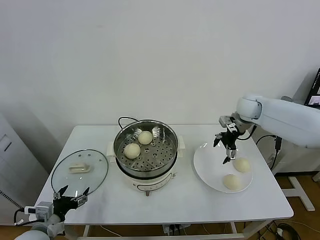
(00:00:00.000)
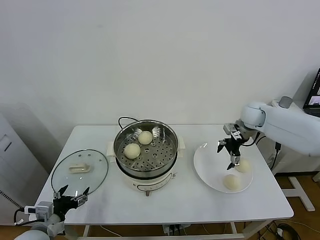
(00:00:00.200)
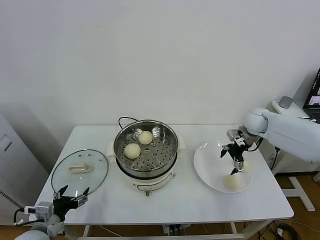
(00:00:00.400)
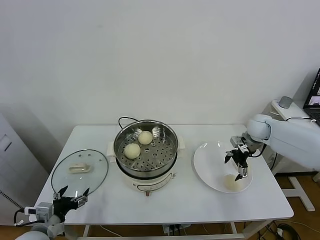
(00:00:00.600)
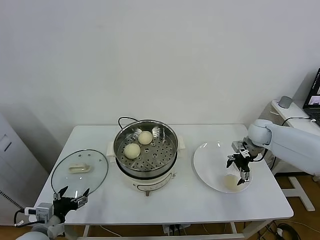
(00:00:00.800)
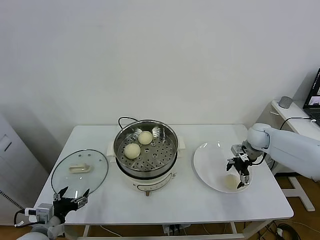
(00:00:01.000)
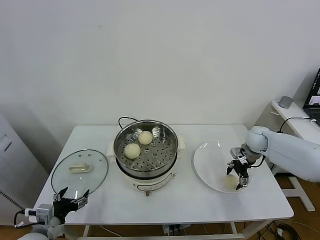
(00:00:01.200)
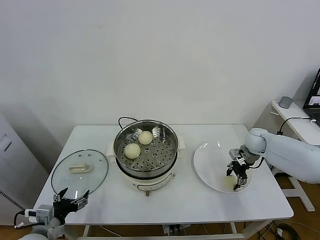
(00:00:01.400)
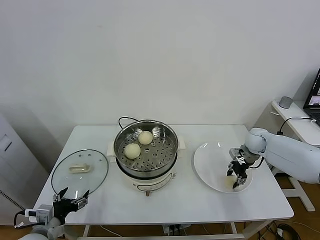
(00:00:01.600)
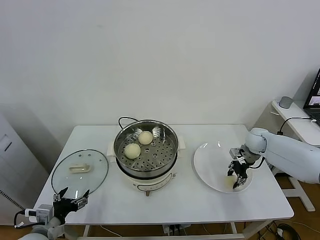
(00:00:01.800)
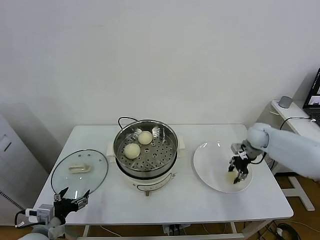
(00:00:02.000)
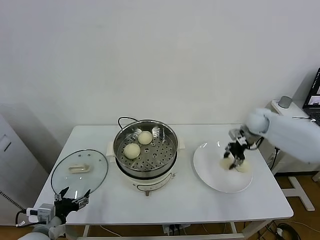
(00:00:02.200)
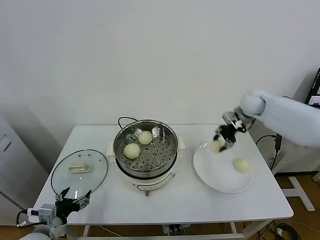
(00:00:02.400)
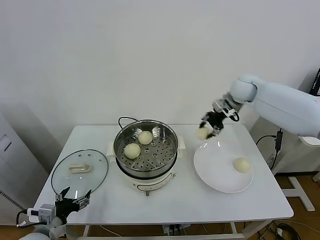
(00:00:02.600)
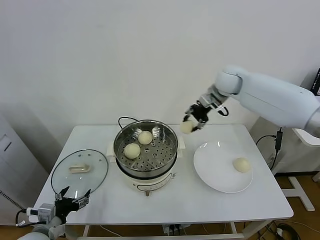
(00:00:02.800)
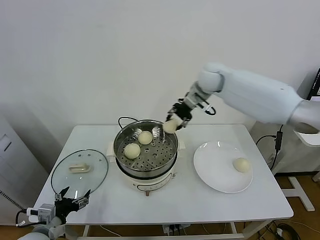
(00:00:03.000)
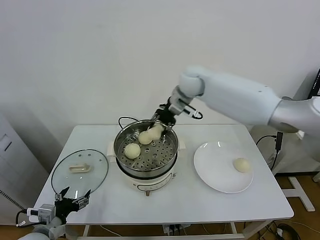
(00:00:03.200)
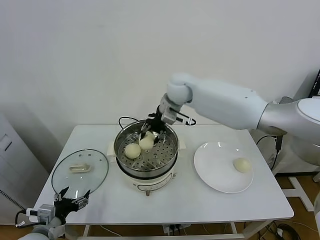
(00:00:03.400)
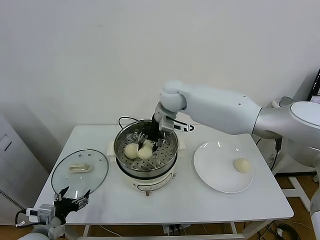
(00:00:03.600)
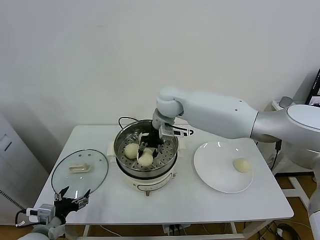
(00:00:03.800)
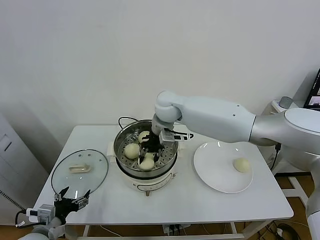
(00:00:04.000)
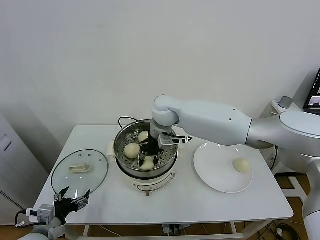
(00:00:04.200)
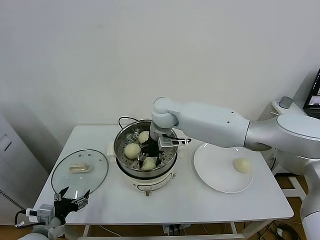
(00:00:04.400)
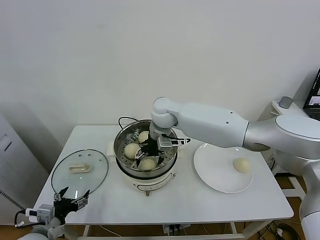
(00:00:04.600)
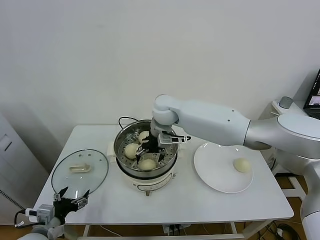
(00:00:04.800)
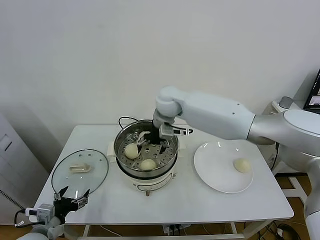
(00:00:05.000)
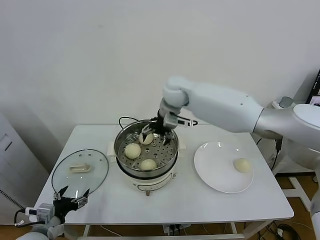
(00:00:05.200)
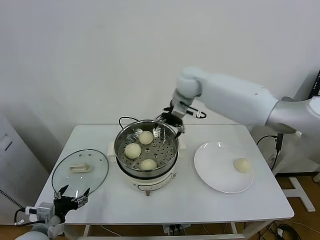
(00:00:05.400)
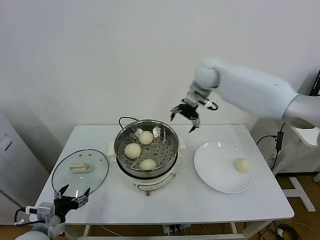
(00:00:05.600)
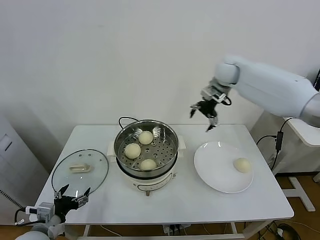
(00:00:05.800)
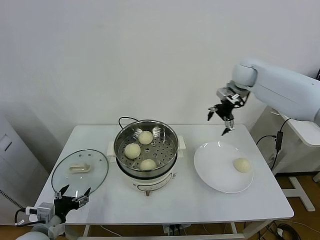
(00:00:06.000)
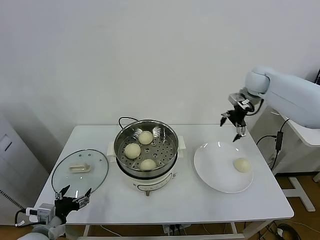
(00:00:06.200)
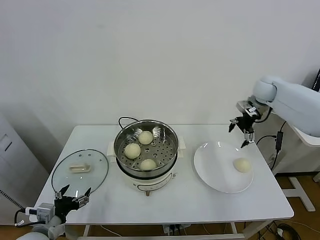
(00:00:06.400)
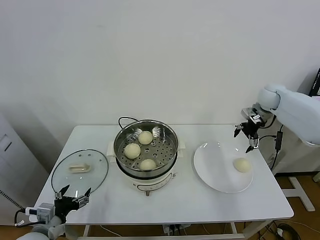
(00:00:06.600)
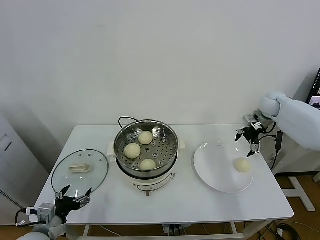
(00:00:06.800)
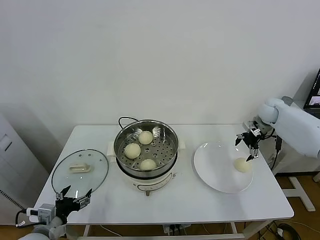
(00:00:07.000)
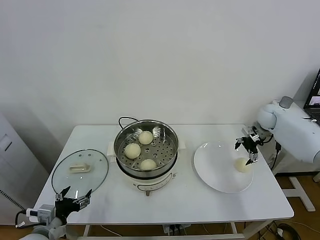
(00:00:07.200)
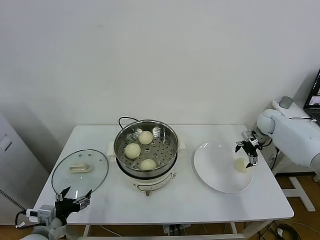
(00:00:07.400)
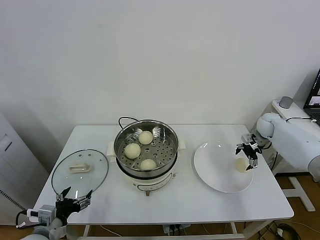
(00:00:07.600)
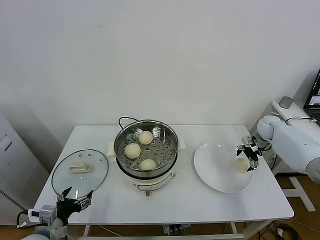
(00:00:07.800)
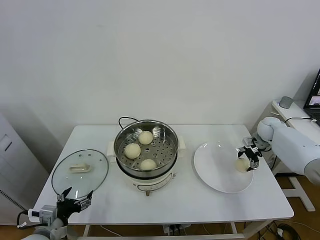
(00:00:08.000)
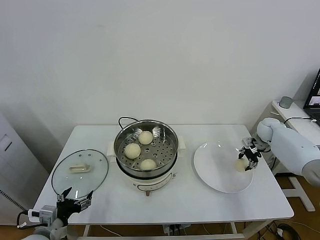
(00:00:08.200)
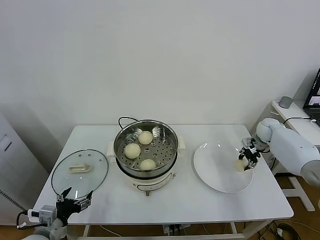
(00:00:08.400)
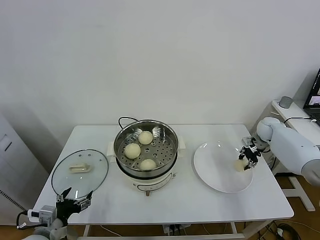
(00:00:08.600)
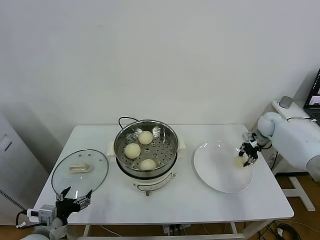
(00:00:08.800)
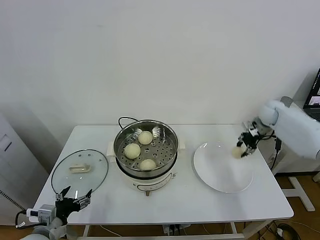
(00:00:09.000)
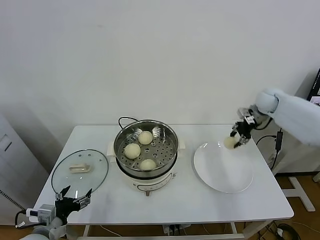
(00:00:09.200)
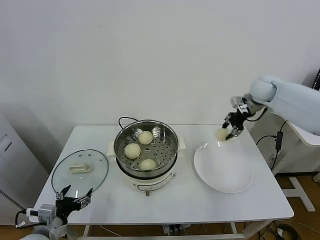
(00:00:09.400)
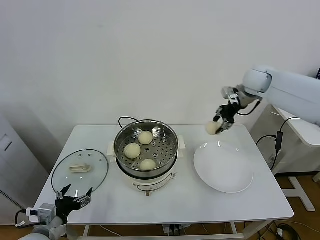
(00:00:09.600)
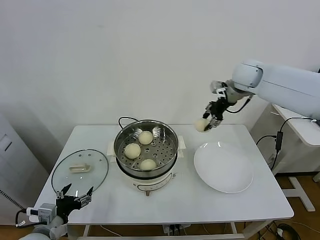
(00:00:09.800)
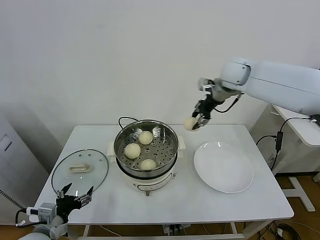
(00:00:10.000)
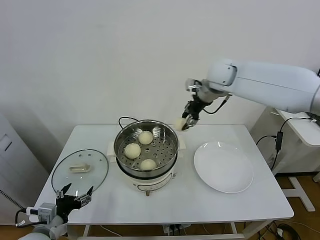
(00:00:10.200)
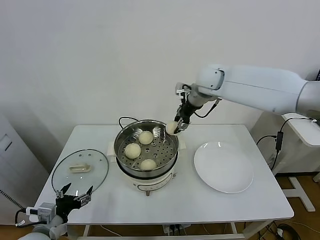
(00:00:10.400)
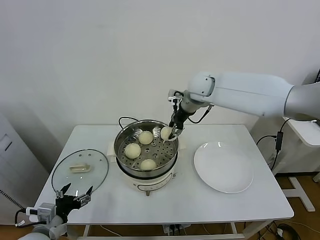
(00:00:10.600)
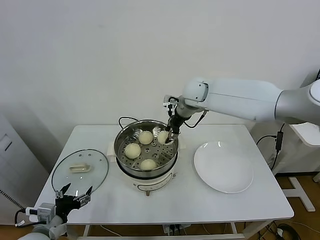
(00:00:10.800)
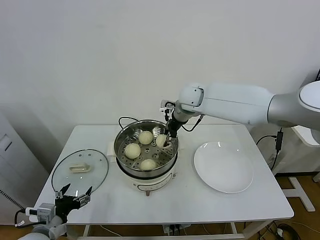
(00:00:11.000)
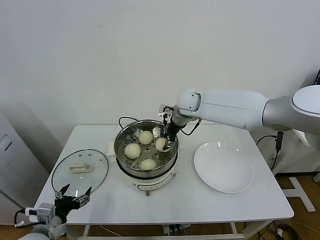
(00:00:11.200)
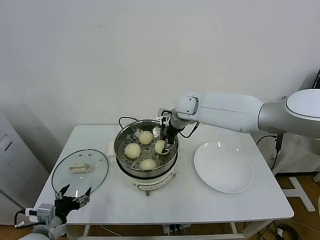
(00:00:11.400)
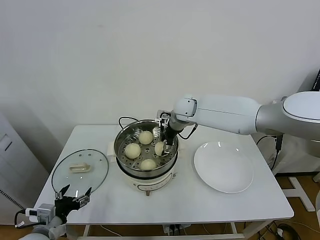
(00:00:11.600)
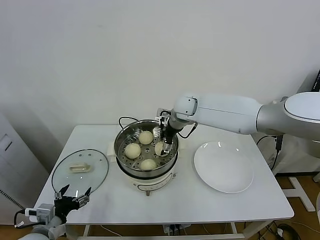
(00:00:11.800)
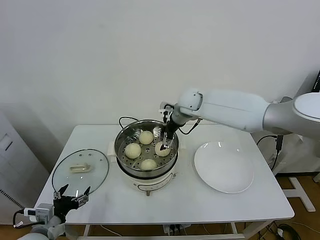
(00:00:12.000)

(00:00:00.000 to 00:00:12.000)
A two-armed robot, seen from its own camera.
Task of the whole recording: take steamed baozi put them in steamer.
Step, 00:00:00.000 - 00:00:01.800: Grasp the baozi in the plate with right gripper.
Step, 00:00:02.000 - 00:00:05.000: Place the baozi on the steamer with right gripper.
Step, 00:00:05.200 - 00:00:08.400: Grasp the baozi in the plate with right gripper.
Step, 00:00:08.600 - 00:00:11.800: Place the baozi on the steamer with right gripper.
00:00:00.000 - 00:00:01.600: The right gripper travels downward and to the right by some 15 cm, and closes up.
00:00:01.600 - 00:00:03.000: The right gripper goes approximately 35 cm upward and to the left.
00:00:03.000 - 00:00:04.400: The right gripper goes approximately 20 cm to the left, downward and backward, and opens.
00:00:04.400 - 00:00:06.000: The right gripper travels to the right by approximately 30 cm, and opens its fingers.
00:00:06.000 - 00:00:07.600: The right gripper moves downward and to the right, some 25 cm.
00:00:07.600 - 00:00:09.000: The right gripper is displaced upward by approximately 5 cm, and closes.
00:00:09.000 - 00:00:10.400: The right gripper heads to the left and upward, covering approximately 30 cm.
00:00:10.400 - 00:00:12.000: The right gripper moves downward, roughly 10 cm, and opens.

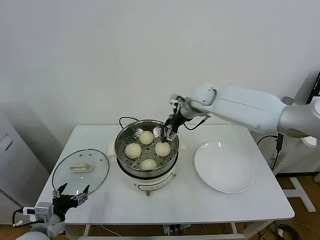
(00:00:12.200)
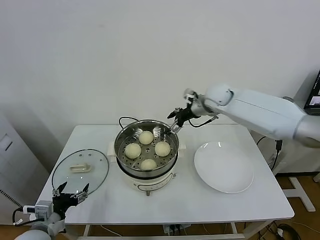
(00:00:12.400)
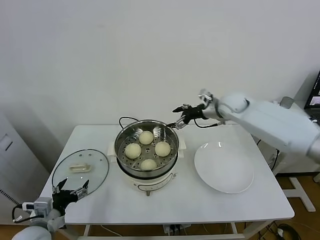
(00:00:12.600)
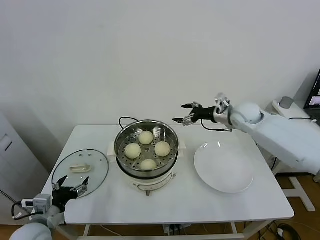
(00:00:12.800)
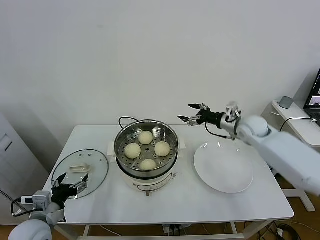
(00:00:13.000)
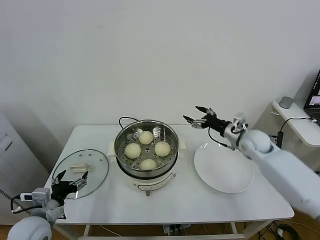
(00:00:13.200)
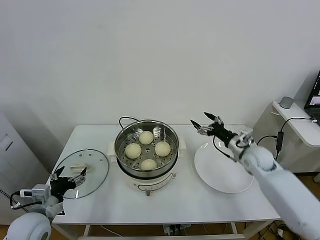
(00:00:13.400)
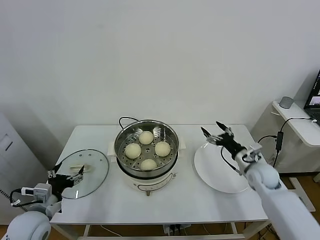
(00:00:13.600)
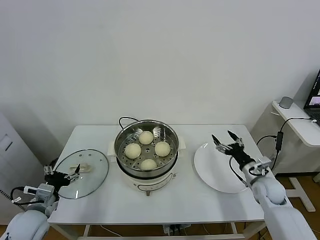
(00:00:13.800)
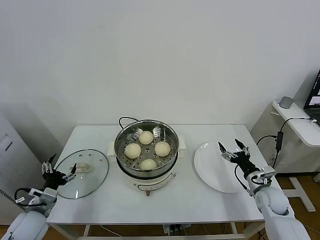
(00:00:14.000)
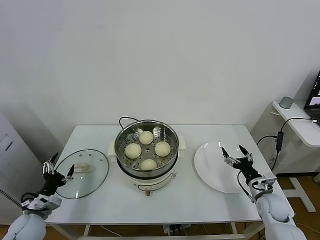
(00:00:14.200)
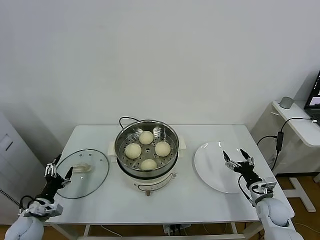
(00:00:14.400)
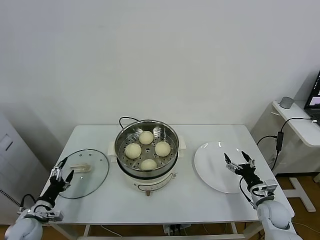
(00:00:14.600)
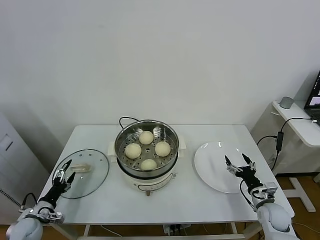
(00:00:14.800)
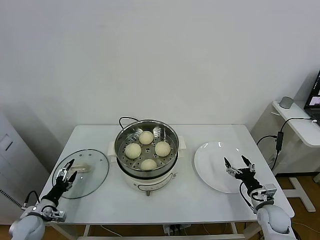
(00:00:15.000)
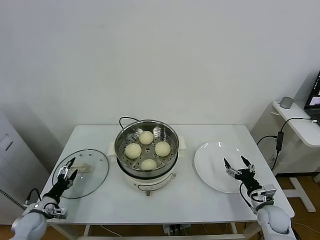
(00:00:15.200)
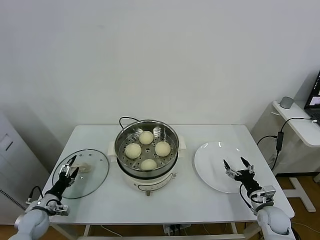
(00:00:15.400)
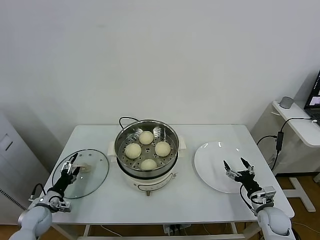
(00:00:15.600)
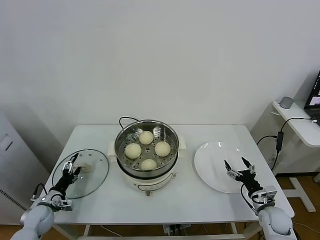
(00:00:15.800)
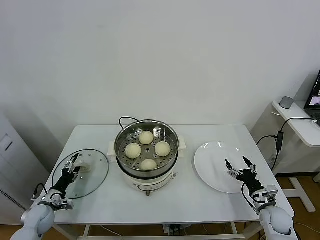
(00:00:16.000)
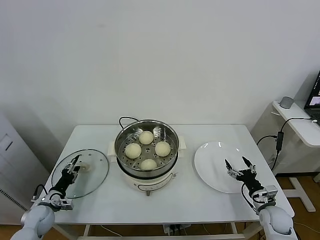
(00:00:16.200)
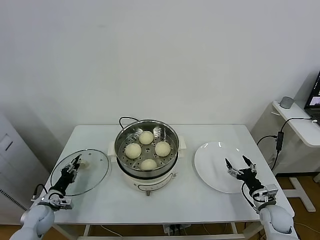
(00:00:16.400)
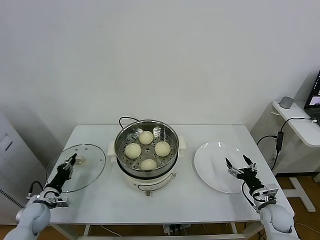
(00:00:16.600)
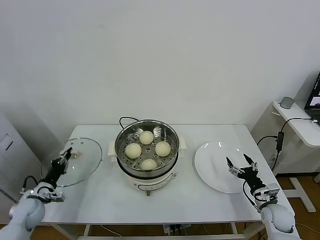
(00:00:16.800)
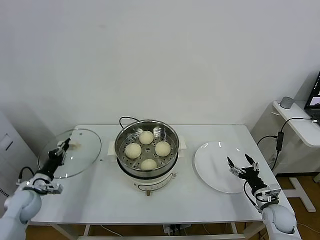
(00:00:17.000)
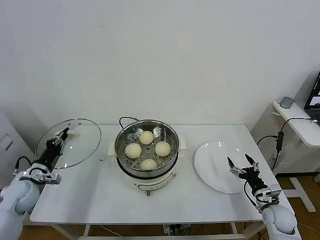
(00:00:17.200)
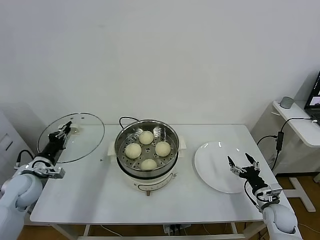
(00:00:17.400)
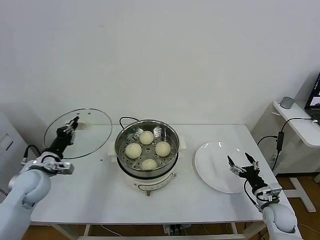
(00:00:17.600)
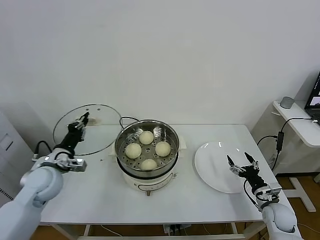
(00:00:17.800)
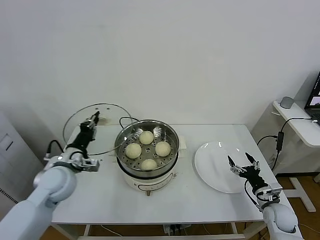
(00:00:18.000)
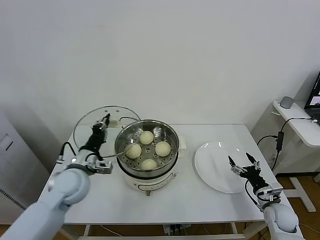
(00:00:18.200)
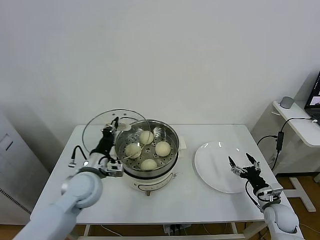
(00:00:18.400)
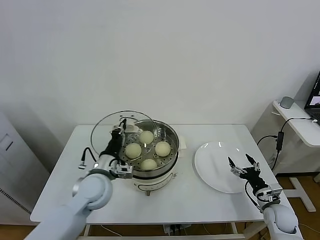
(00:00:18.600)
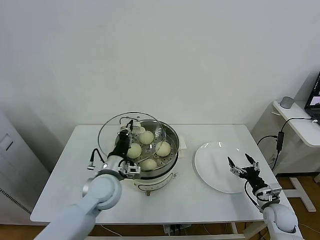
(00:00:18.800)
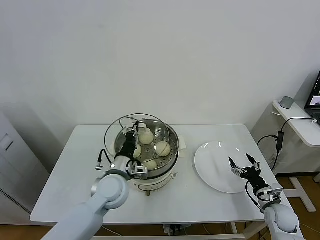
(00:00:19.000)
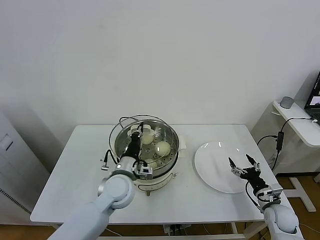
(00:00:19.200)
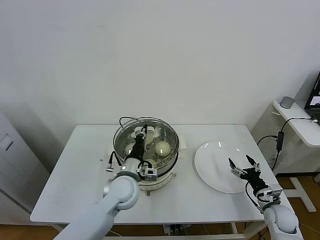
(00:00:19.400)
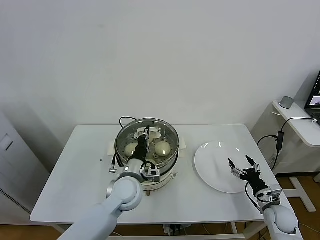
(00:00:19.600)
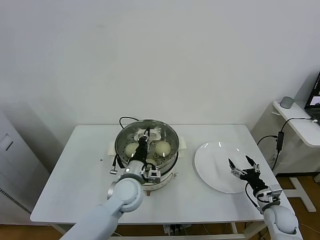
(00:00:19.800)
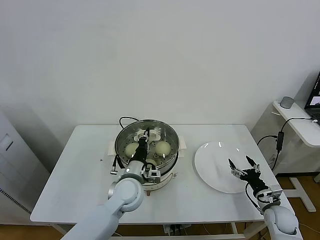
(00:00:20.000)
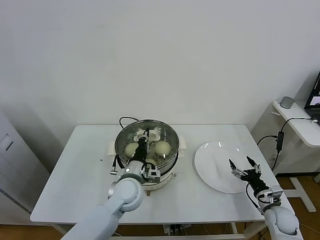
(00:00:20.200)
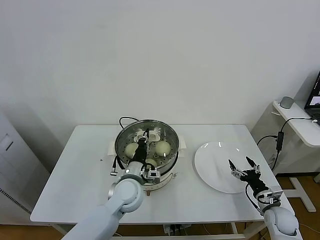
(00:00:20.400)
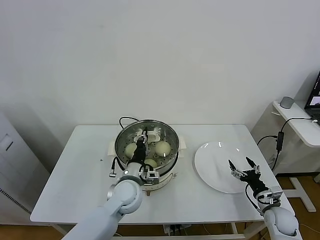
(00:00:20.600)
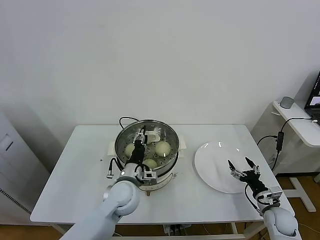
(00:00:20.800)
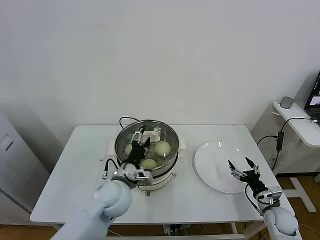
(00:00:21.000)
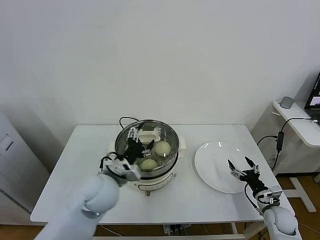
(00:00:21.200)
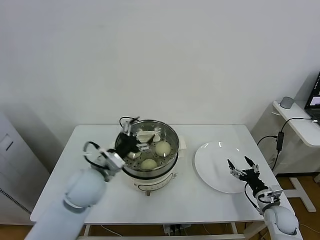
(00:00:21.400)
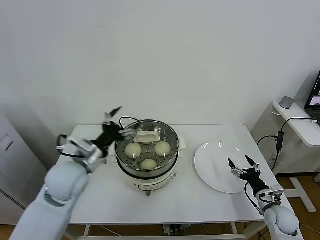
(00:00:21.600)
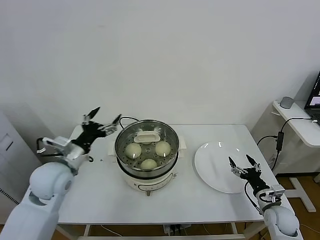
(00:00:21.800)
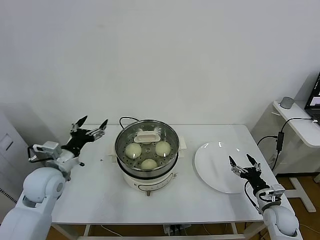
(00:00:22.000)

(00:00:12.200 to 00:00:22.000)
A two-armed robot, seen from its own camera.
Task of the whole recording: take steamed baozi put them in steamer.
Step, 00:00:12.200 - 00:00:16.600: Grasp the pot lid with left gripper.
Step, 00:00:16.800 - 00:00:20.800: Place the pot lid on the steamer with left gripper.
00:00:12.200 - 00:00:13.600: The left gripper changes place by about 5 cm; the right gripper moves downward, to the right and backward, some 35 cm.
00:00:13.600 - 00:00:15.000: The right gripper shifts some 15 cm downward and backward. Meanwhile the left gripper moves downward and to the left, approximately 20 cm.
00:00:15.000 - 00:00:16.400: The left gripper closes up.
00:00:16.400 - 00:00:17.800: The left gripper heads upward and to the right, covering about 25 cm, and closes.
00:00:17.800 - 00:00:19.200: The left gripper travels to the right by approximately 20 cm.
00:00:19.200 - 00:00:20.600: There are only small adjustments of the grippers.
00:00:20.600 - 00:00:22.000: The left gripper heads to the left and upward, covering approximately 25 cm, and opens up.
